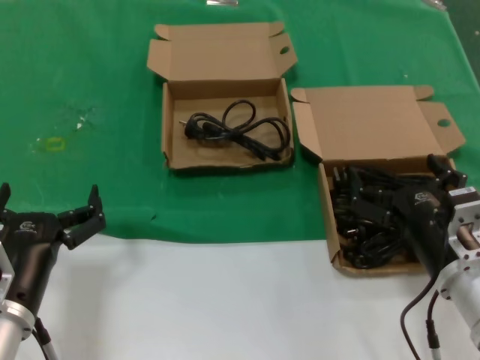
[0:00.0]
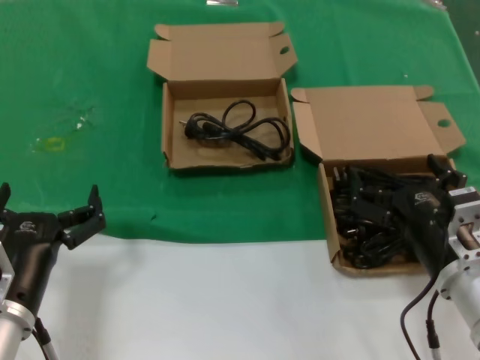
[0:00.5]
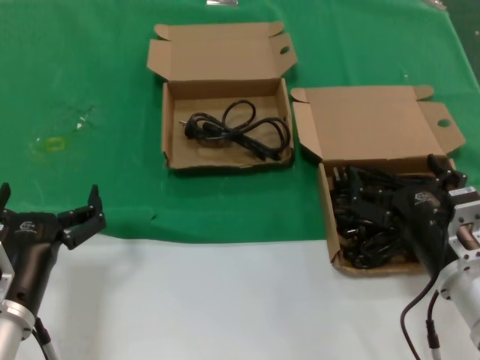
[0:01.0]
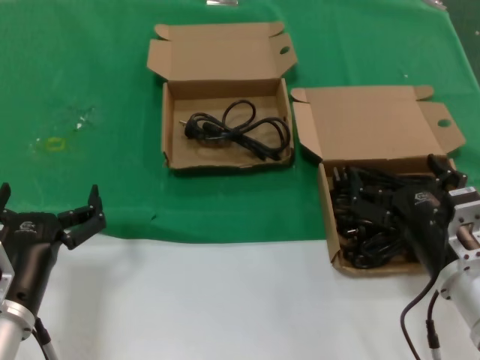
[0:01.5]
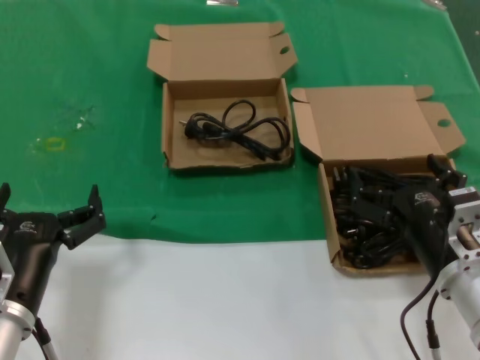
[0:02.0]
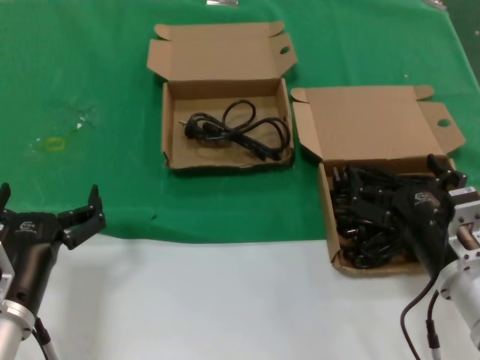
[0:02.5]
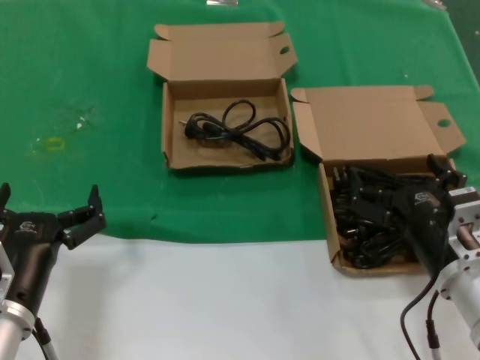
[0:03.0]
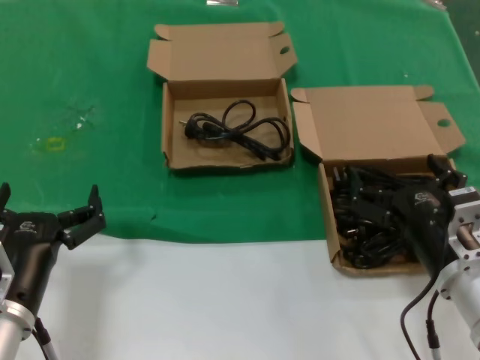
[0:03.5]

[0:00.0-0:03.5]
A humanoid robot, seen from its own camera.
Task of the whole recording: take the parts from the box containing them and put them into an empty box.
0:00.0 to 0:03.5: Neither hand changes place.

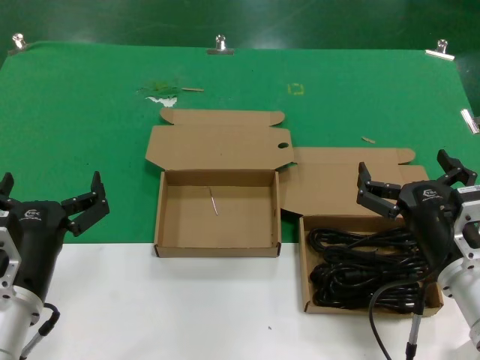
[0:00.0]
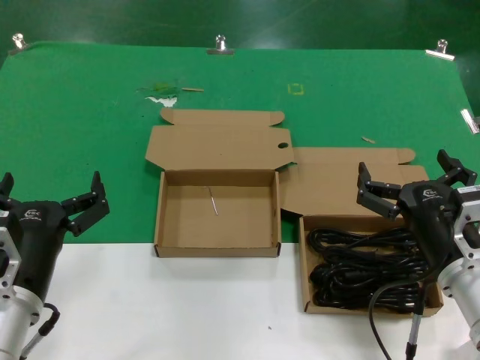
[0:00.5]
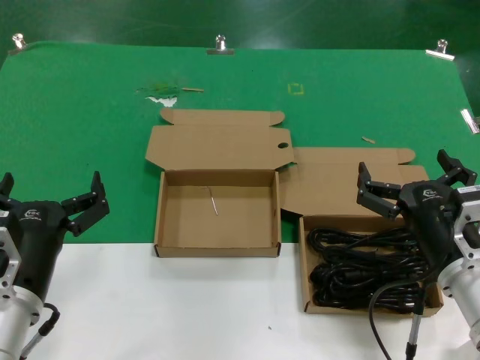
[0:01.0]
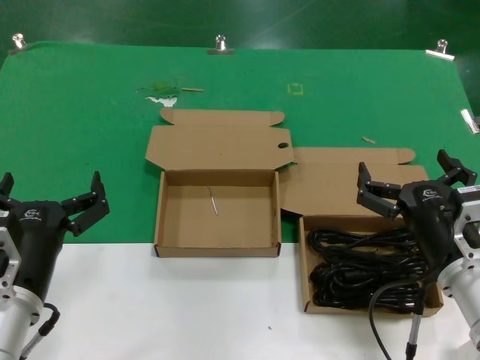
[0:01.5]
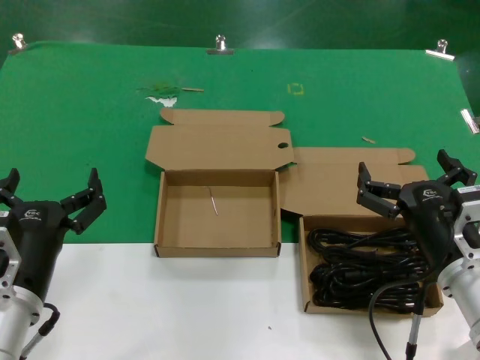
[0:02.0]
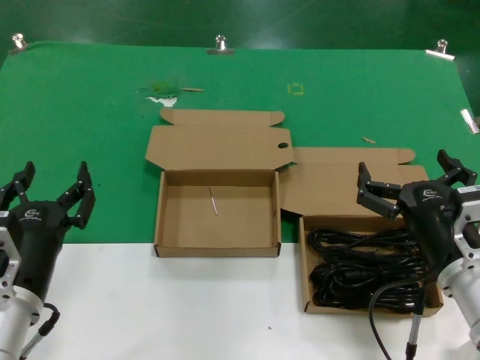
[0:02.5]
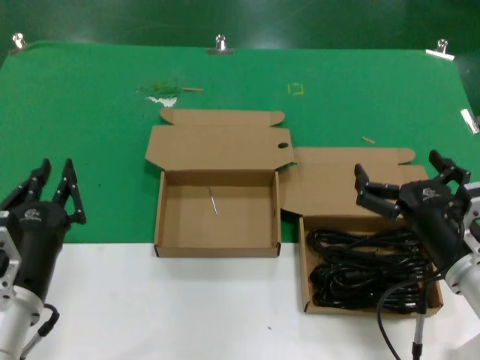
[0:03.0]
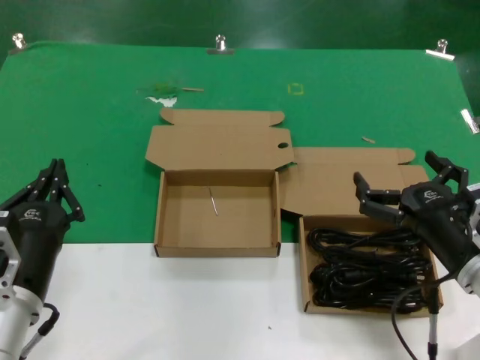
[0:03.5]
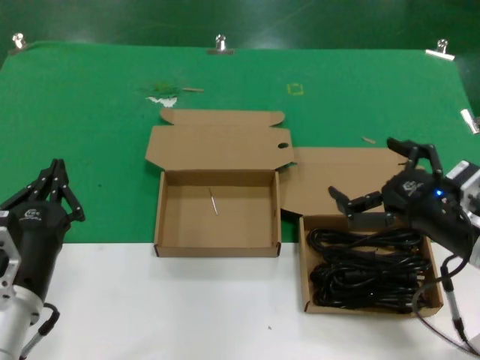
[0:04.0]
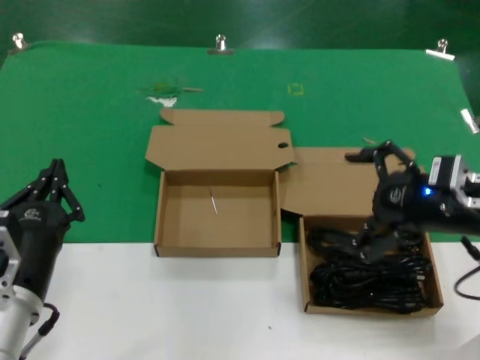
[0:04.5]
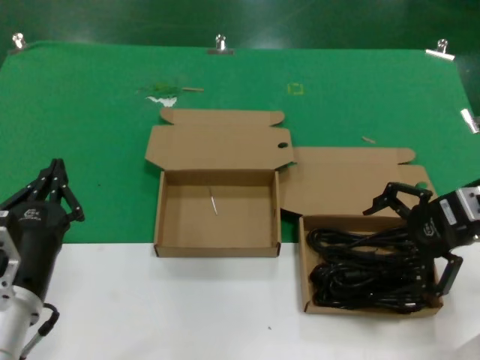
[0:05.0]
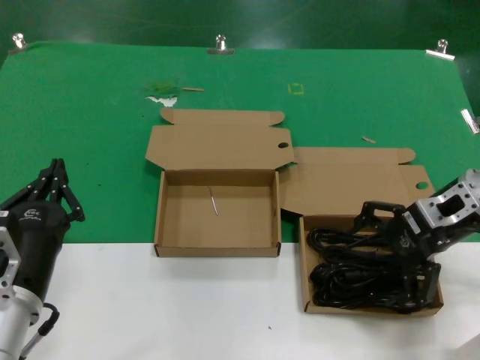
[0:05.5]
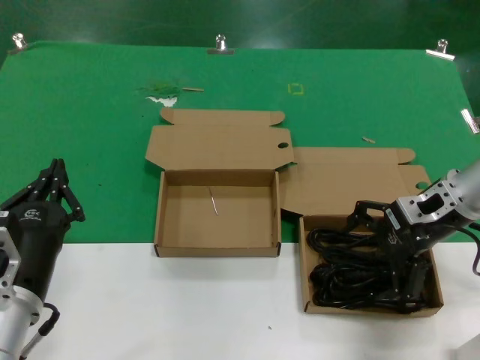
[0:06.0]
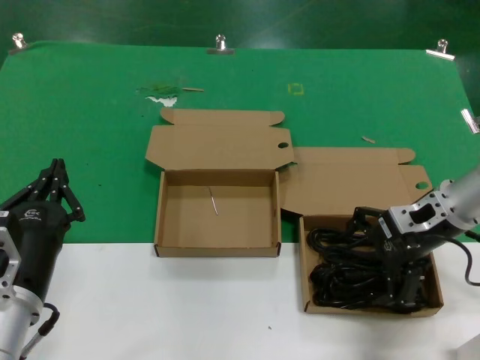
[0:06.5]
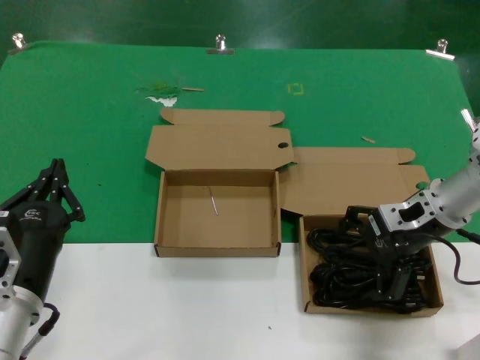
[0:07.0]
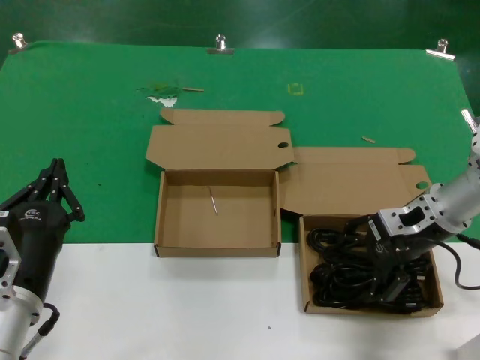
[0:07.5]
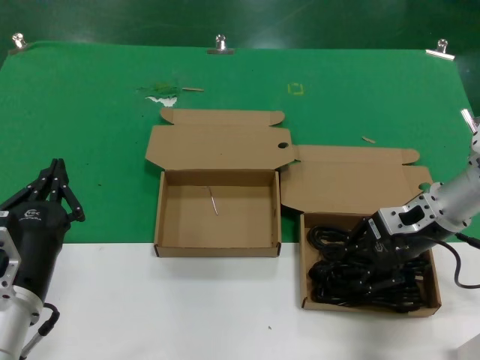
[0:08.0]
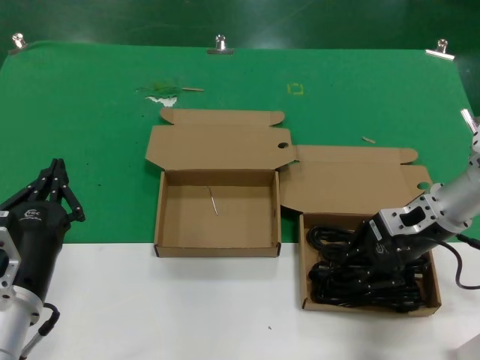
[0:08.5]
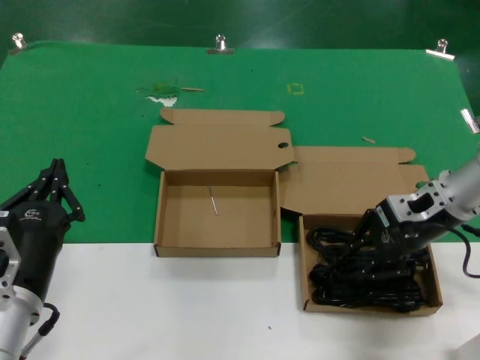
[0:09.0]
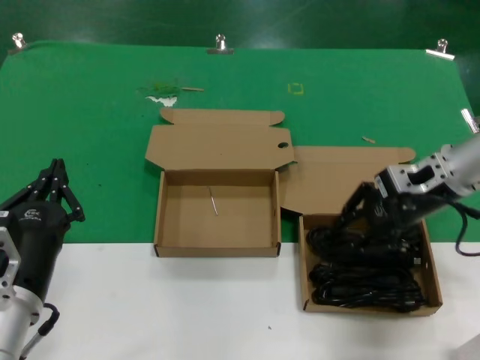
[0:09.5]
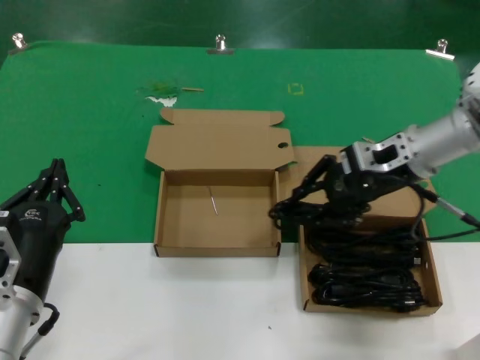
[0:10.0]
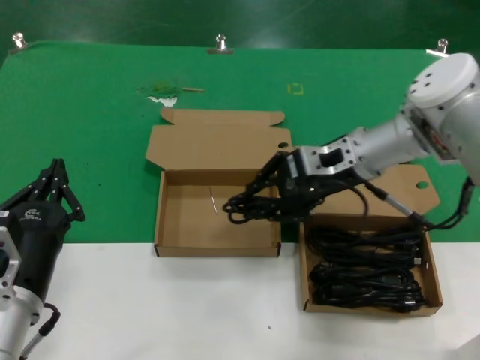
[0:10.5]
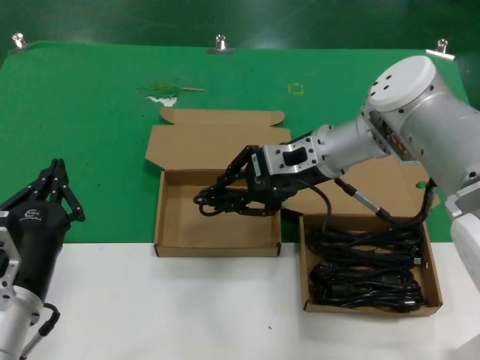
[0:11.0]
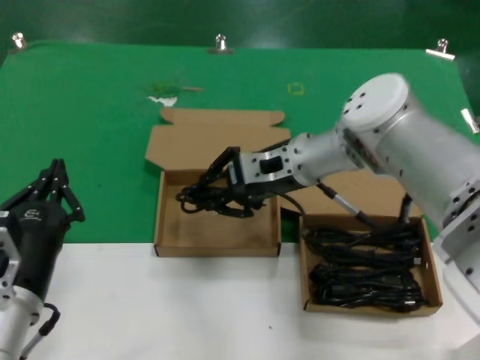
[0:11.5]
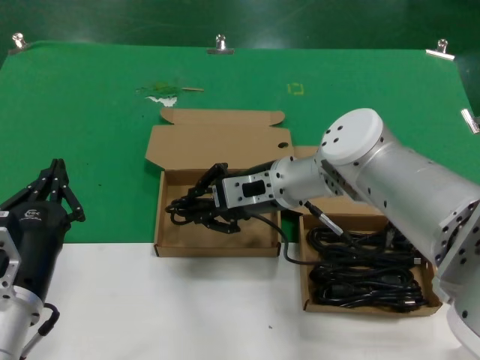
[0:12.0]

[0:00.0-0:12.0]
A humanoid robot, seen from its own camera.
Task of the whole recording: take the parts from the box containing them and put them into an empty box.
Step, 0:00.0 to 0:08.0: Grasp the data cable.
0:00.0 to 0:02.0: The two hands keep their place.
0:02.0 to 0:04.0: The right hand is displaced to the right by some 5 cm.
0:04.0 to 0:06.0: The right hand shifts roughly 15 cm forward.
0:06.0 to 0:08.0: The hands stay close to where they were, moving slightly.
0:08.0 to 0:10.0: The right hand travels upward by about 5 cm.
0:10.0 to 0:12.0: The right hand moves to the left, roughly 15 cm.

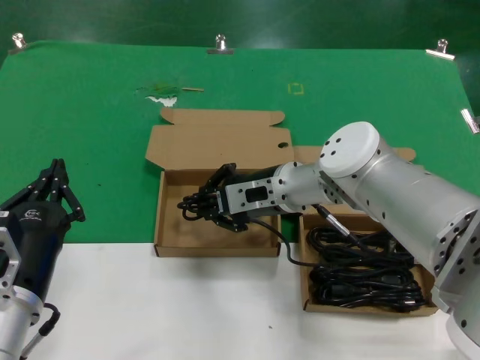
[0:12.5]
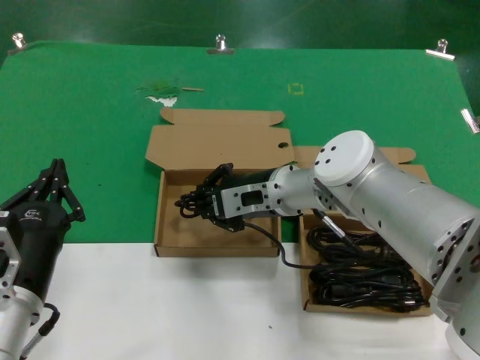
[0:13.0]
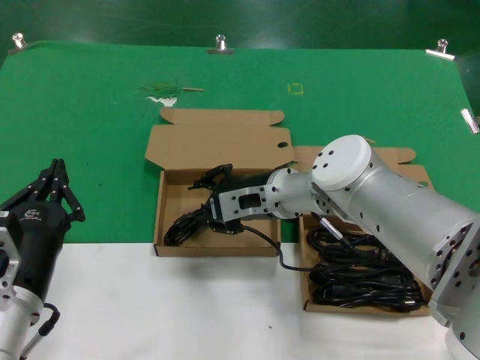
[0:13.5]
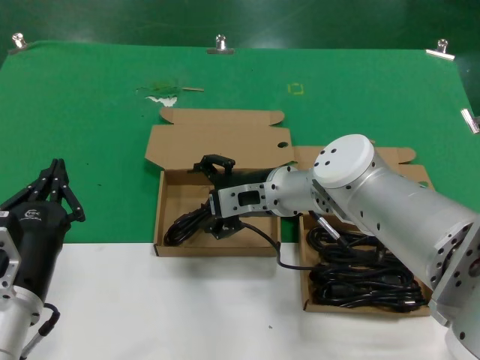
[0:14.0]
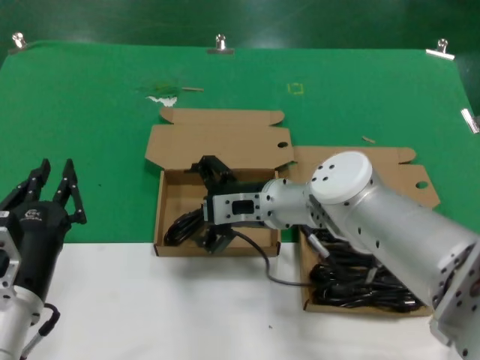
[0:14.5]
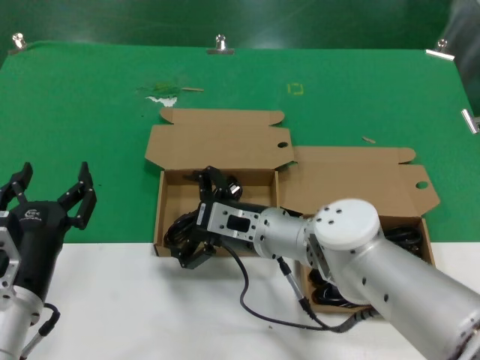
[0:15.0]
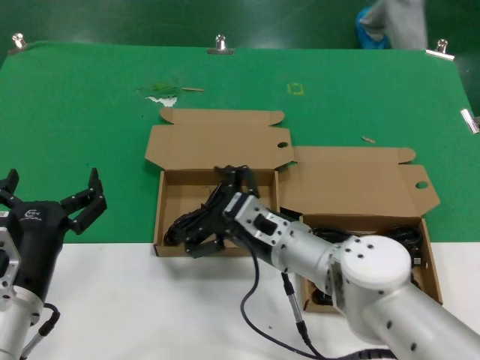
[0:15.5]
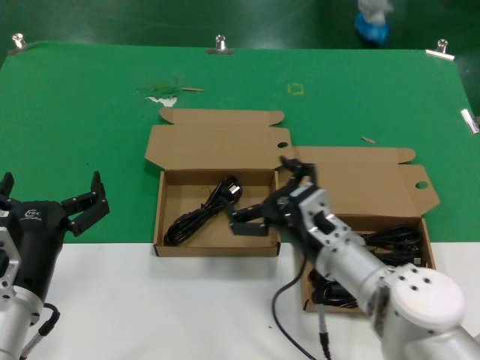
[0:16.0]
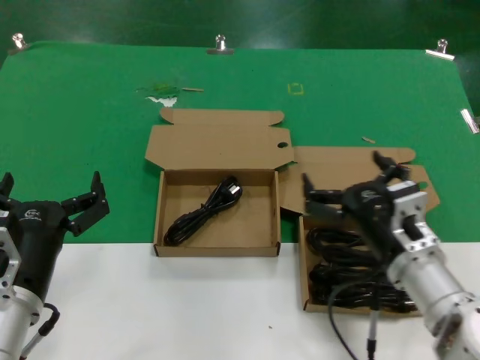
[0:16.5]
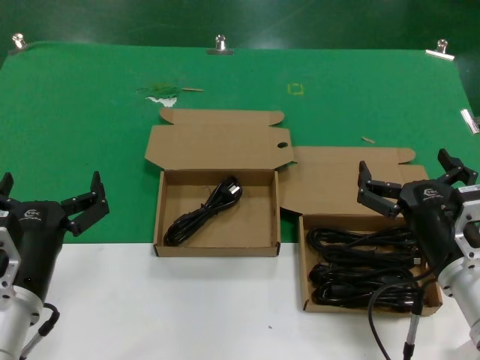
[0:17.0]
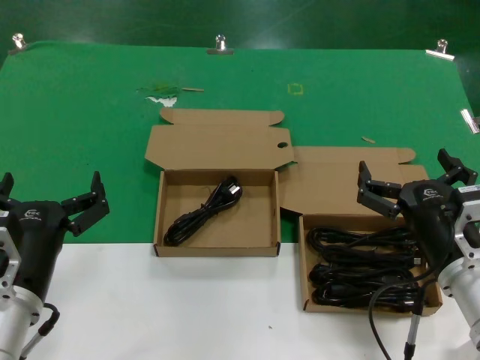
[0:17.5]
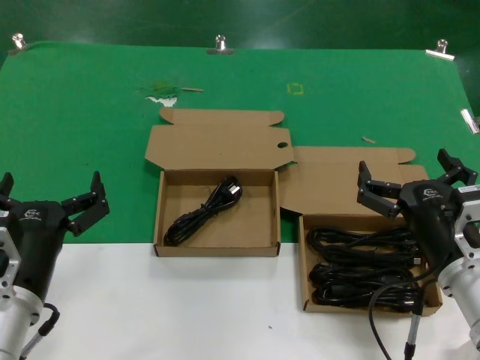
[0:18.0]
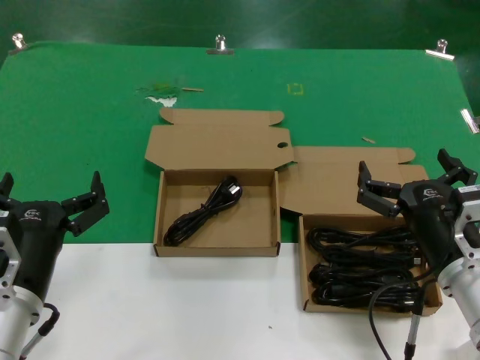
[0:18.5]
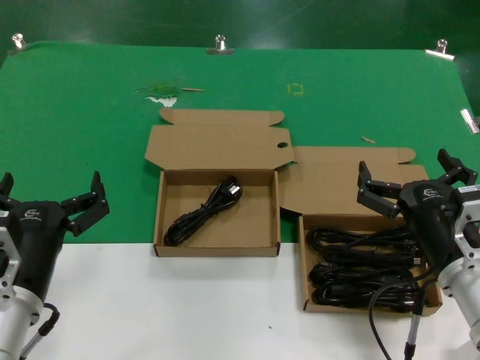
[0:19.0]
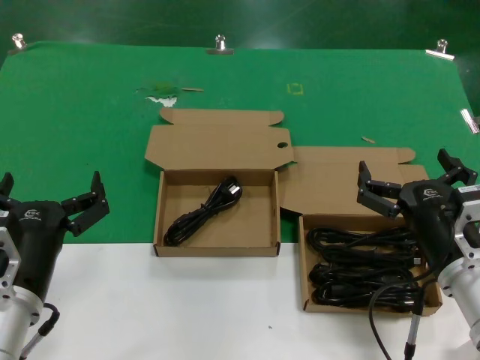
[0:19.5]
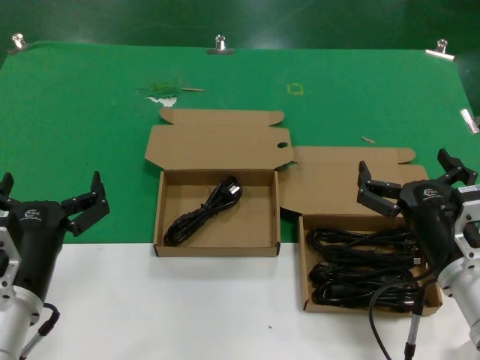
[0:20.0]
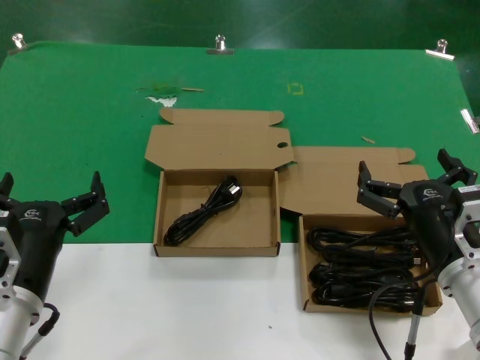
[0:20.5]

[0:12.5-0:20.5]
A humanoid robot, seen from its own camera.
Task of the whole recording: take the parts from the box containing them and put them into an empty box.
0:12.5 to 0:14.5: The hands move only a little.
0:14.5 to 0:16.5: The right hand moves backward and to the right, some 20 cm.
0:16.5 to 0:18.5: The right hand shifts by about 5 cm.
0:18.5 to 0:20.5: Both hands stay about where they are.

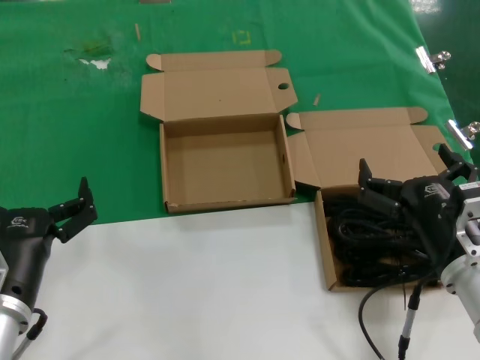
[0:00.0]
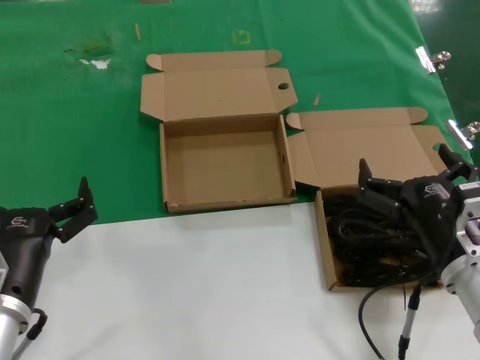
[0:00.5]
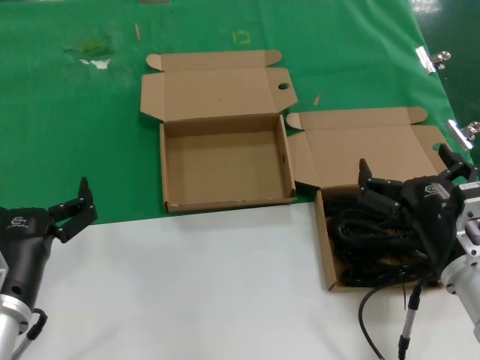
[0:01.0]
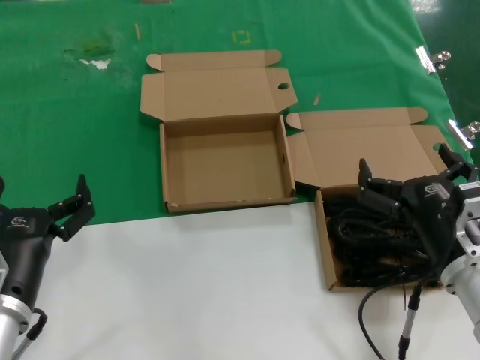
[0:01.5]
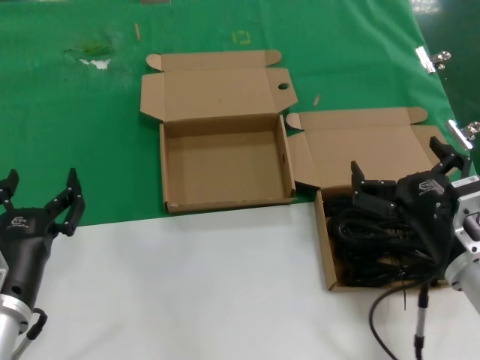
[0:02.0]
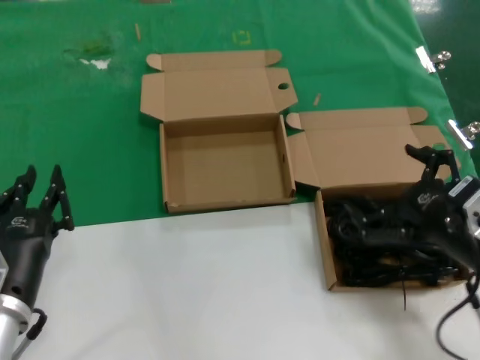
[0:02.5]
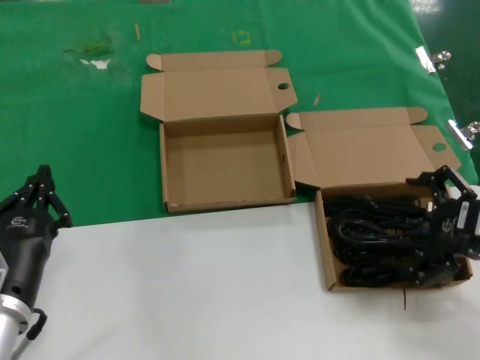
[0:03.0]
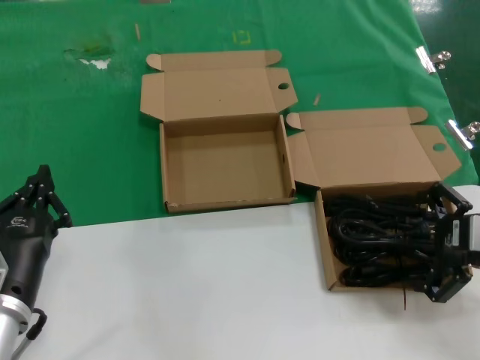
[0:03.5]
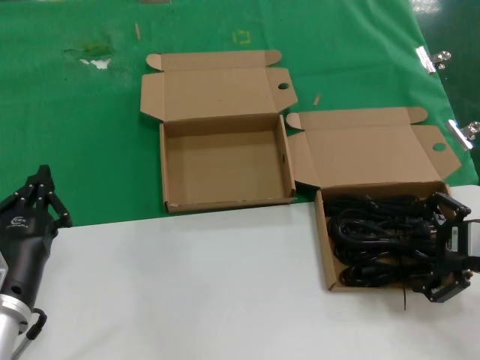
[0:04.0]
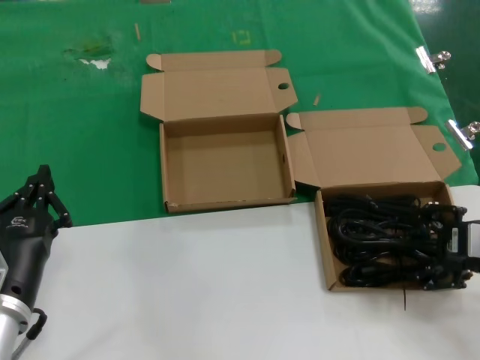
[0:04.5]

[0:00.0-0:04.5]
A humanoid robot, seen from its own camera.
Task of the whole recording: take the parts from the box containing them and put them into an empty box.
0:00.0 to 0:02.0: There are only small adjustments of the hands.
0:02.0 to 0:04.5: The right hand travels to the right and upward by roughly 15 cm.